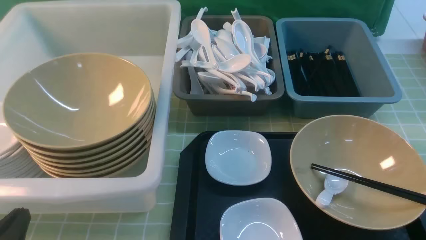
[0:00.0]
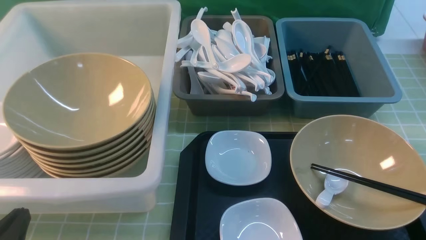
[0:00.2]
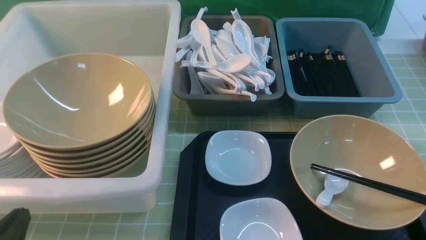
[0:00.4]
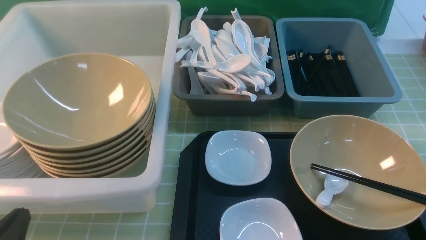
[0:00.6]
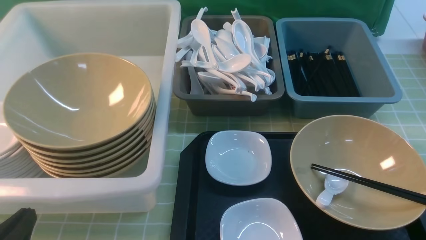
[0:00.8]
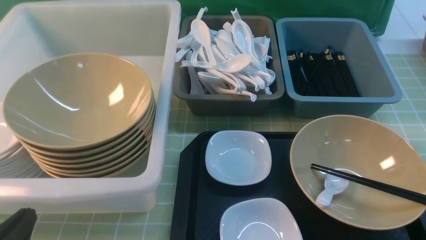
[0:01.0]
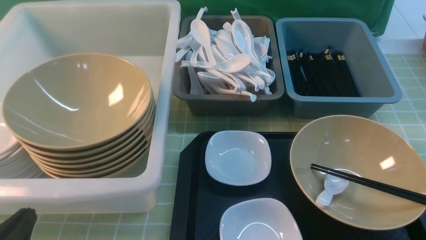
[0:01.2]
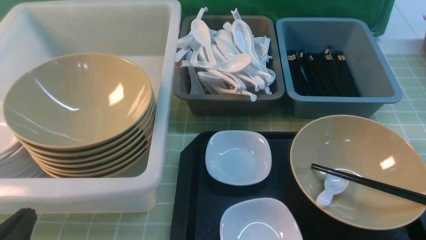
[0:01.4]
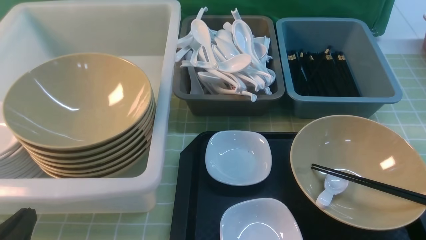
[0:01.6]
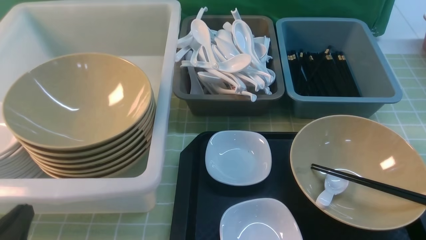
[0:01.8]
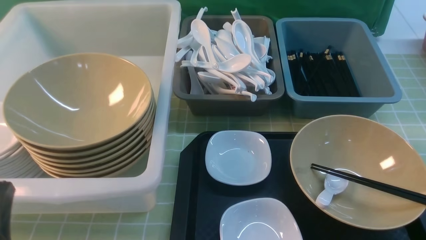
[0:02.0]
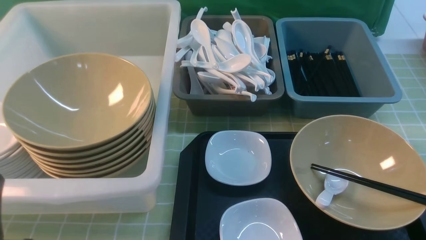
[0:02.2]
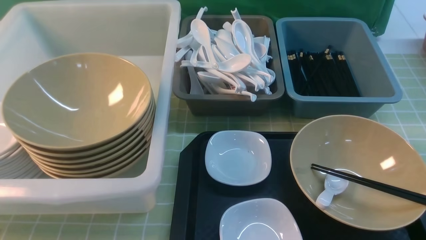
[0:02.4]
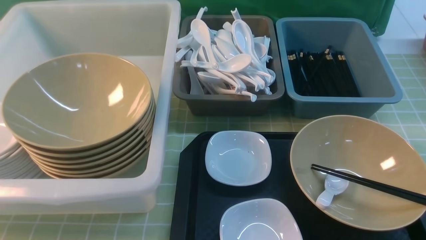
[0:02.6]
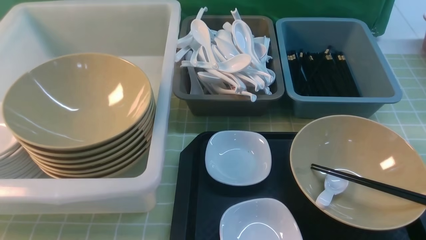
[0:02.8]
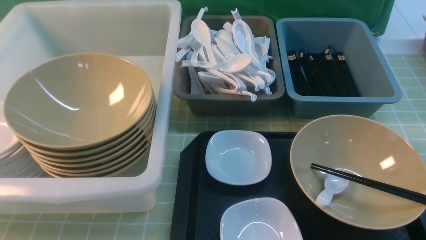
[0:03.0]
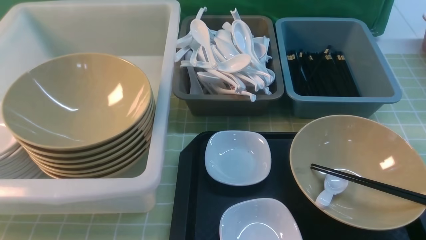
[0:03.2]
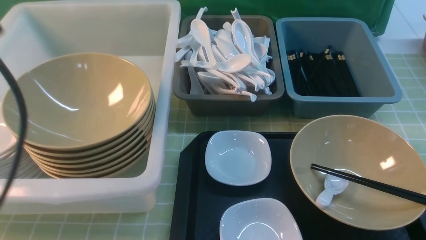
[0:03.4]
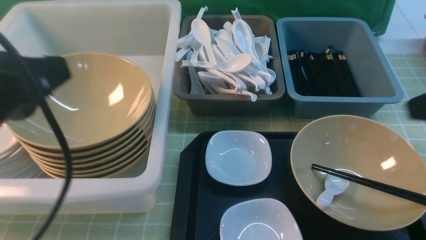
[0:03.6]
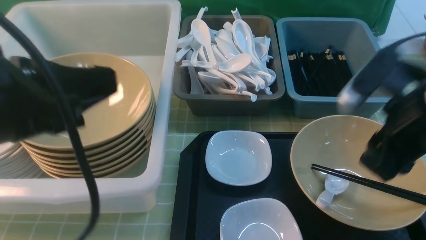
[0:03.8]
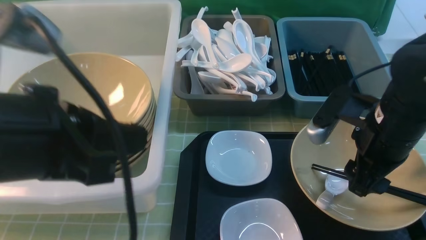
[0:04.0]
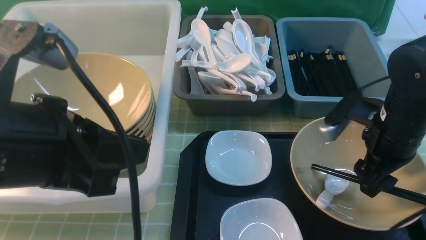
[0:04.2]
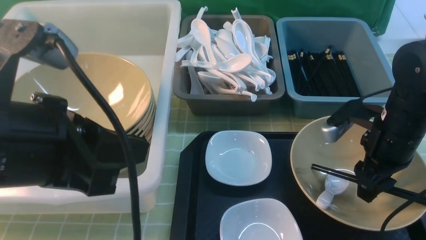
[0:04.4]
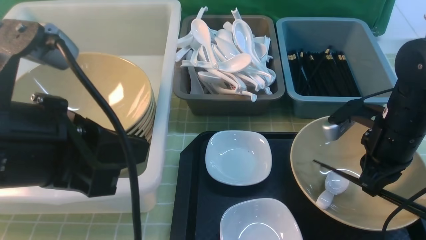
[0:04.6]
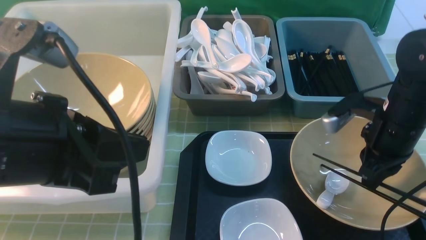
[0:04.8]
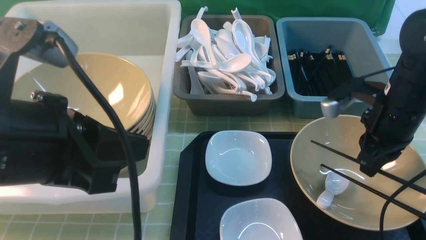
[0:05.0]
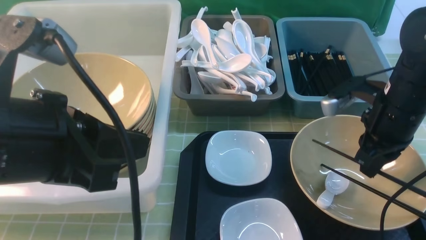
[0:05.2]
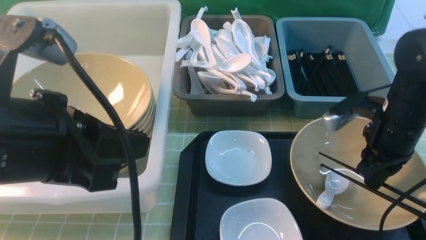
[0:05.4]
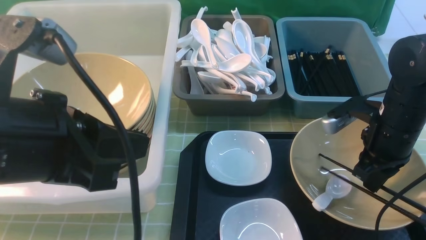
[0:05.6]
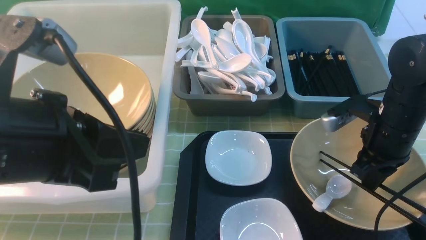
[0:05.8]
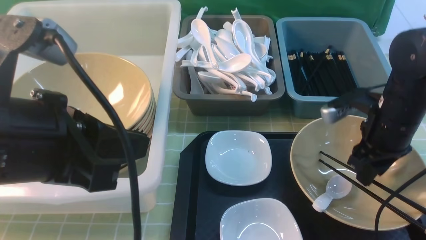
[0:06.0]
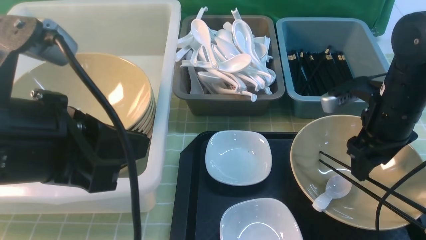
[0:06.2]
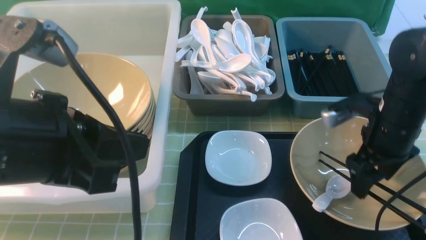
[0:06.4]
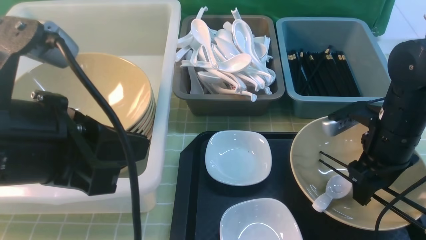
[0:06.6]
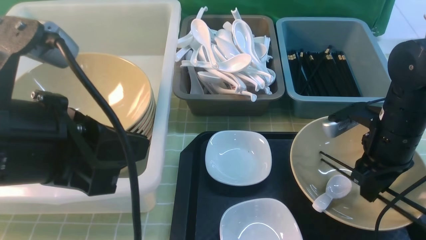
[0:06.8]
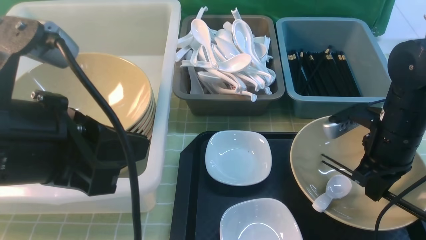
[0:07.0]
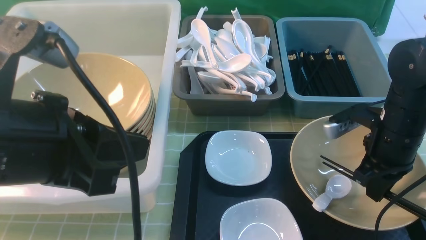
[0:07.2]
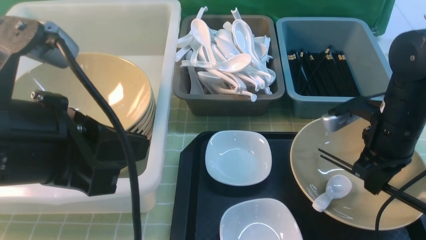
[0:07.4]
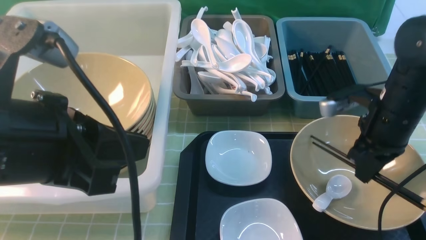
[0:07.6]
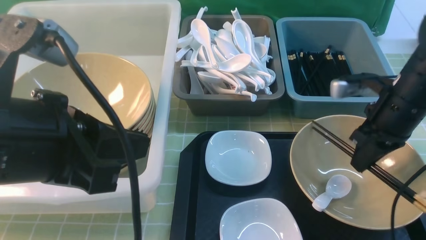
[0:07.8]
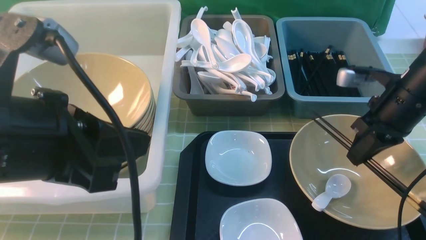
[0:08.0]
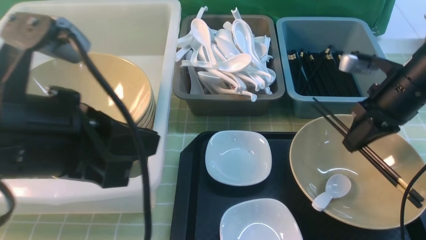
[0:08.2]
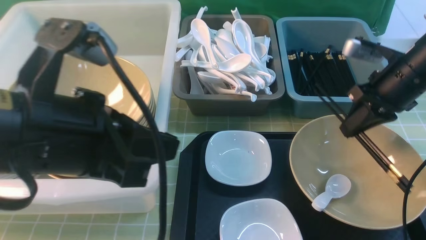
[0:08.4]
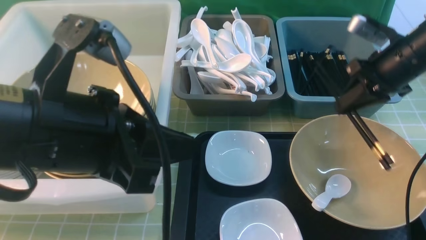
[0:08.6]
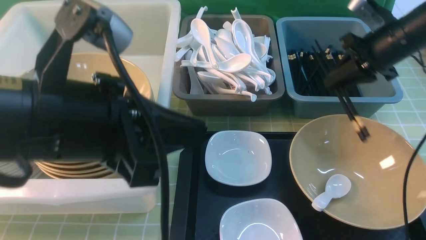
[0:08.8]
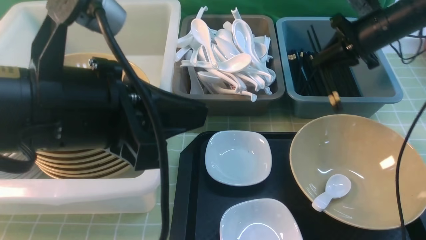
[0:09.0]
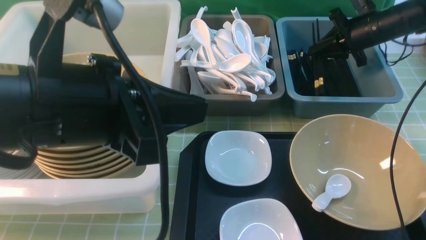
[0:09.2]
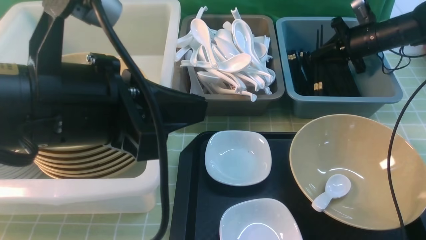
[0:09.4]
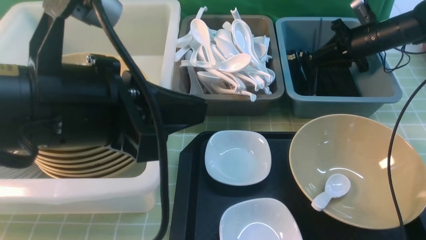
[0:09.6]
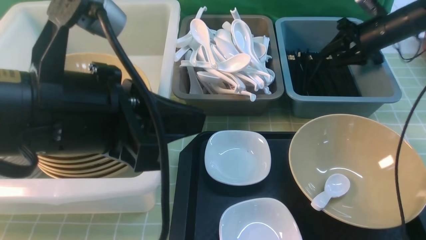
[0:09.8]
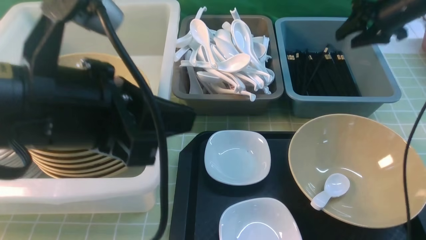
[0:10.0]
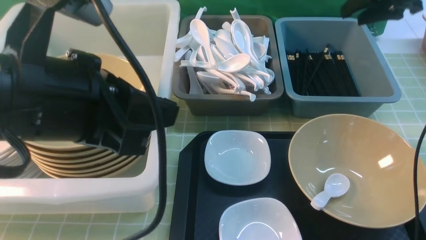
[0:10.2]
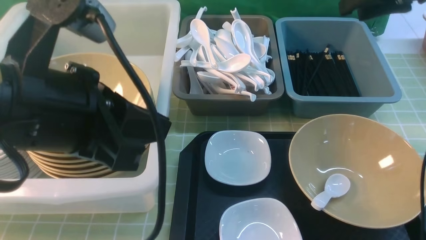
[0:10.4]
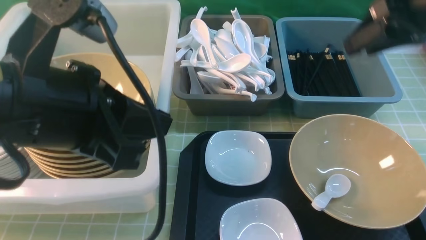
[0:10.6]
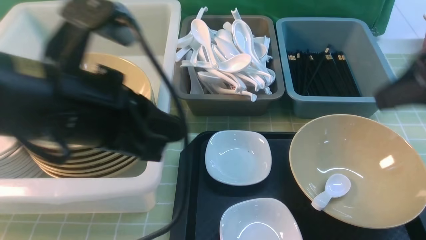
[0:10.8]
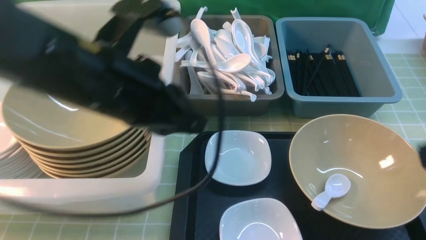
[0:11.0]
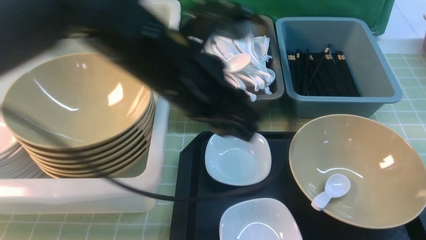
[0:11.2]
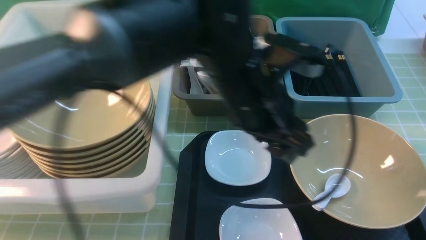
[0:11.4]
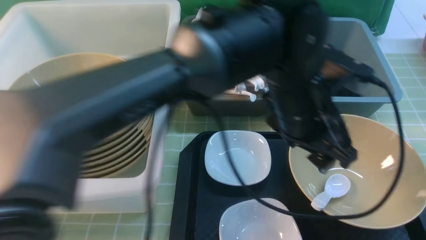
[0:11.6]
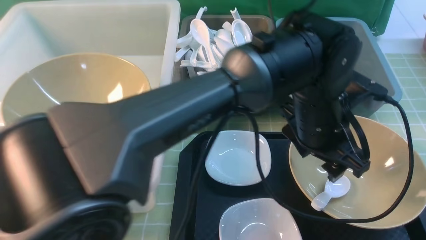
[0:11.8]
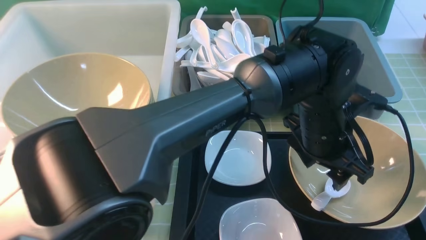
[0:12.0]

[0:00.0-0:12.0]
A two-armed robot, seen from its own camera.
Task of the whole recording: on green table put chopsticks spoon bowls plates into blue grey white boxes.
Step, 0:00.0 to 0:07.4: use the right arm to grab the chopsticks.
Step, 0:07.6 to 0:10.0: use the right arm to put the chopsticks into the small storage box on the right.
0:00.0 to 0:01.6: Both grippers stay about where they are.
0:01.6 to 0:03.0: The left gripper shifts approximately 25 cm upward.
0:03.0 to 0:04.4: The right gripper is displaced forward and downward by approximately 30 cm. The left gripper is displaced to the right, forward and downward by approximately 15 cm.
0:04.4 to 0:06.0: The right gripper closes and opens again.
0:06.0 to 0:07.6: The right gripper closes its fingers.
0:07.6 to 0:09.0: The right gripper travels forward by approximately 15 cm.
0:09.0 to 0:10.4: The right gripper heads upward and backward, covering some 15 cm, and opens its fingers.
0:10.4 to 0:12.0: The left gripper goes about 30 cm to the right and downward, and opens; the right gripper travels backward by about 30 cm, and closes its fingers.

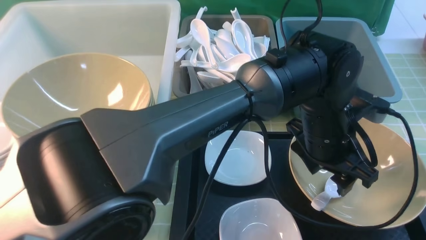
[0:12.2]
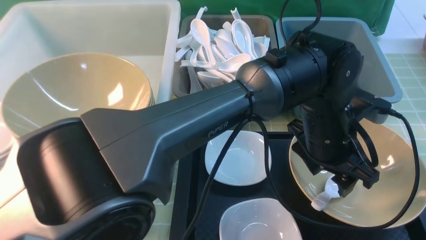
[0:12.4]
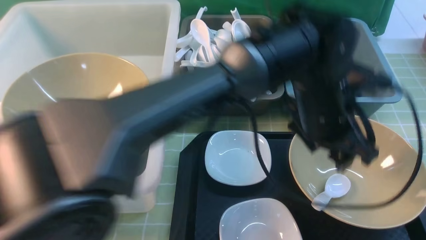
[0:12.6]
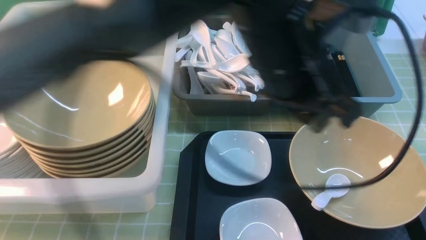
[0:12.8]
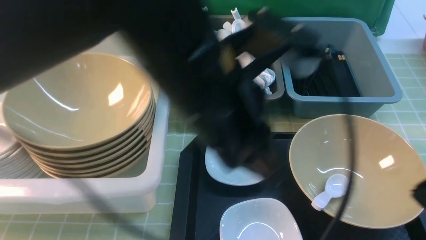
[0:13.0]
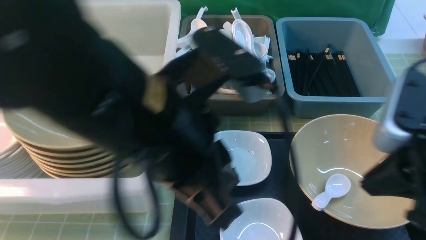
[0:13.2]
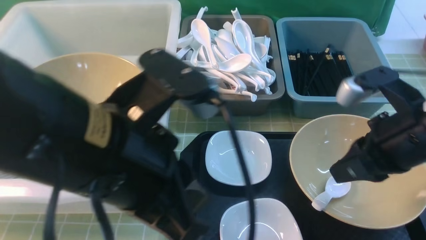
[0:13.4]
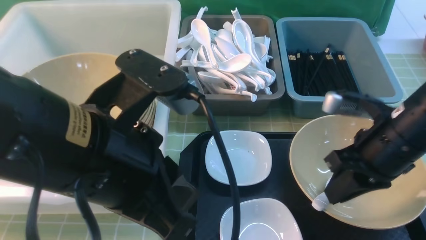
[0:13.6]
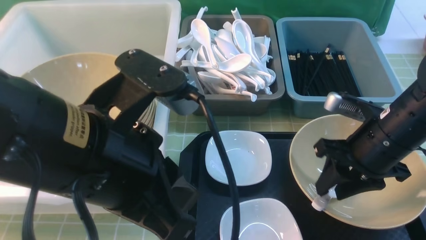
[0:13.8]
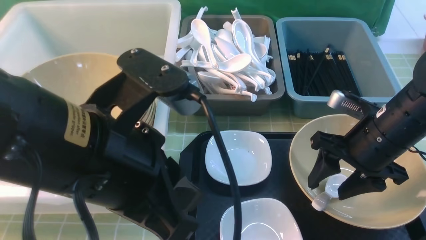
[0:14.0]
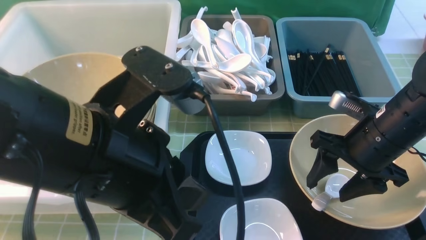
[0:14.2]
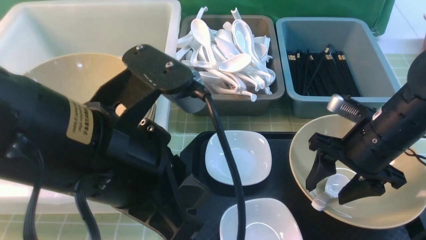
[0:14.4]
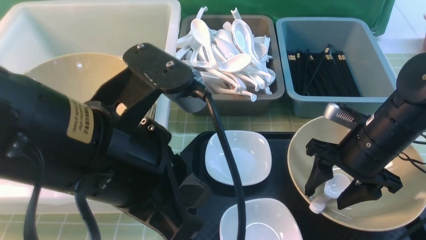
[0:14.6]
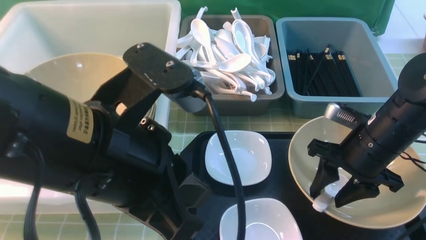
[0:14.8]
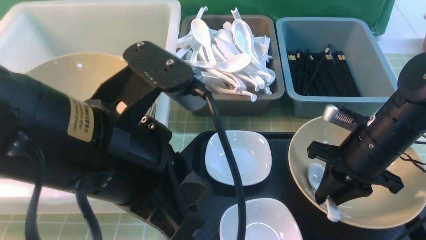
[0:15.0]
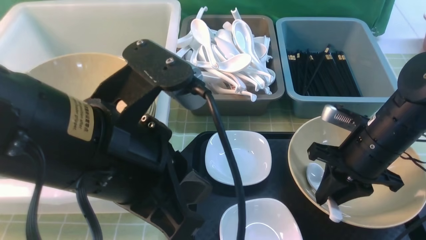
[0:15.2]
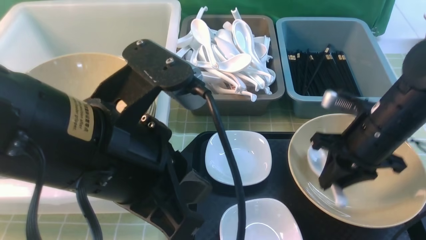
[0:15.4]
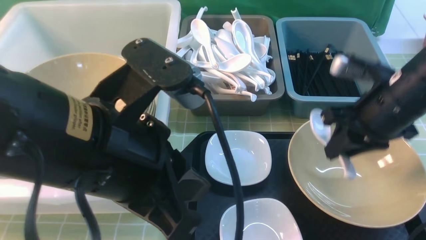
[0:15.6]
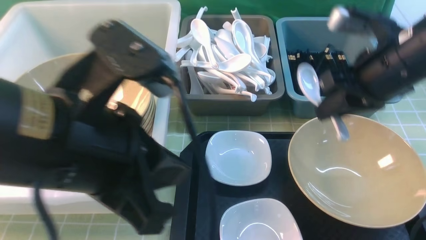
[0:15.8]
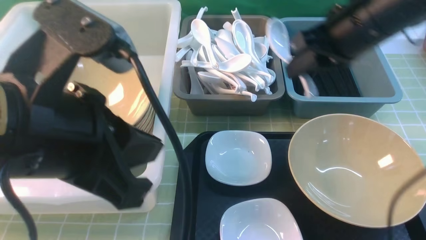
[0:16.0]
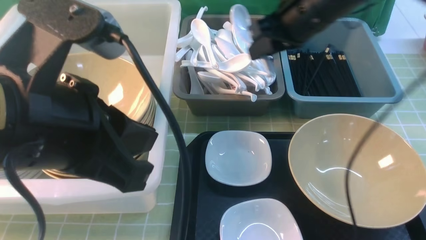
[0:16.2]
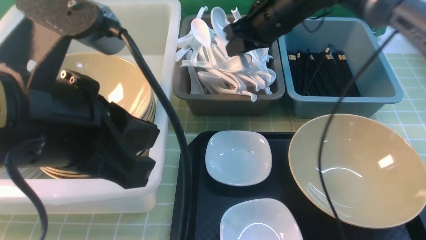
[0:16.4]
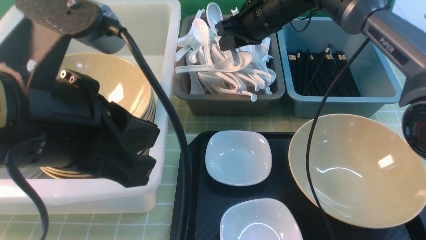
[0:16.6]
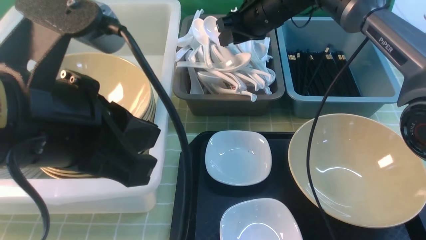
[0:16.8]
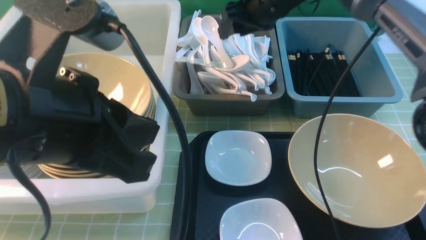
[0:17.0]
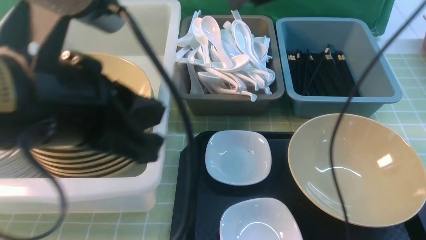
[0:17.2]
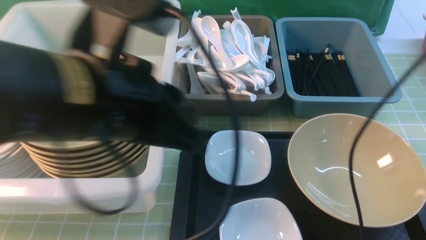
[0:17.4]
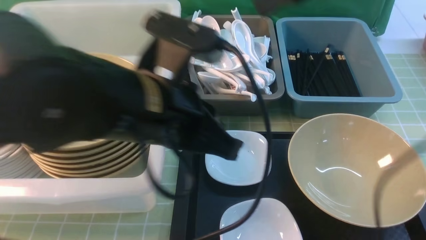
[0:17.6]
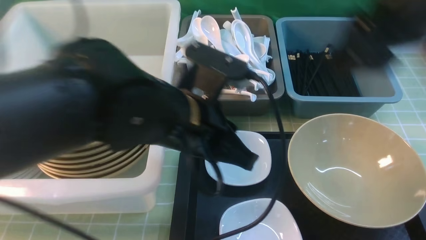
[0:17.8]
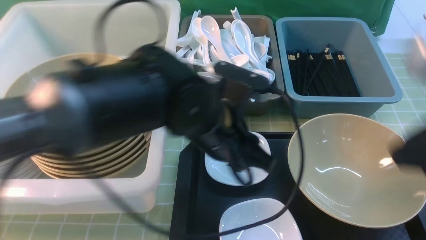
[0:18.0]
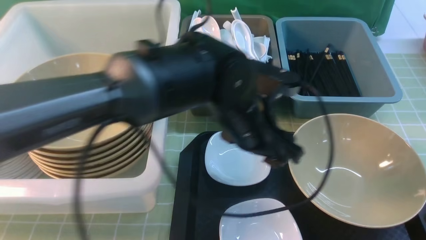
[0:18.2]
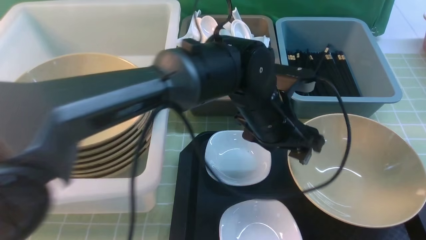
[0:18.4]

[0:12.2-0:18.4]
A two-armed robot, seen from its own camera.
Task of the whole recording: on green table put chopsticks spoon bowls plates into blue grey white boxes.
Step, 0:12.2 to 0:15.6: use the right arm to grab the soup spoon in the middle.
Step, 0:15.8 to 0:17.6: use the right arm to put the soup spoon into the small storage box in the middle.
0:12.2 to 0:13.8: The left gripper heads to the left, backward and upward, covering about 30 cm, and closes; the right gripper moves forward, downward and to the left, some 25 cm, and opens.
0:13.8 to 0:15.4: The right gripper closes.
0:15.4 to 0:16.8: The right gripper shifts about 25 cm forward and to the left.
0:16.8 to 0:18.4: The left gripper shifts some 30 cm to the right, forward and downward, and opens its fingers; the right gripper is displaced backward by approximately 40 cm, and closes up.
